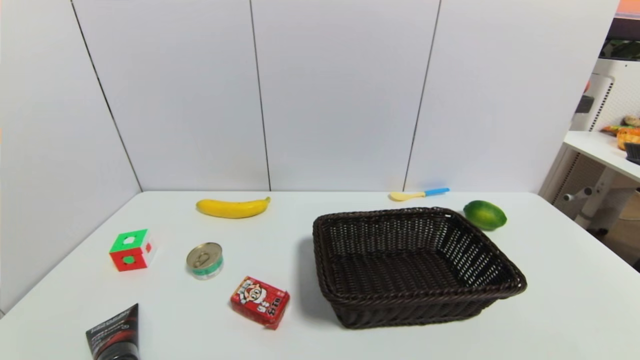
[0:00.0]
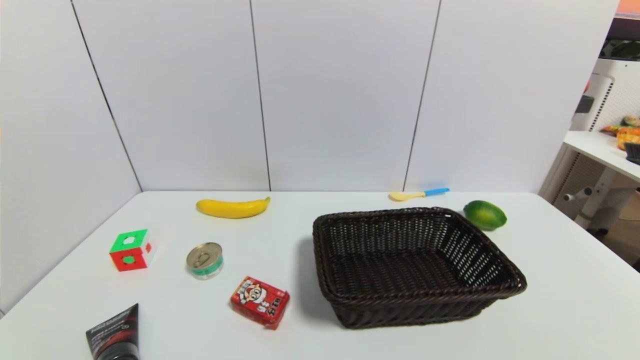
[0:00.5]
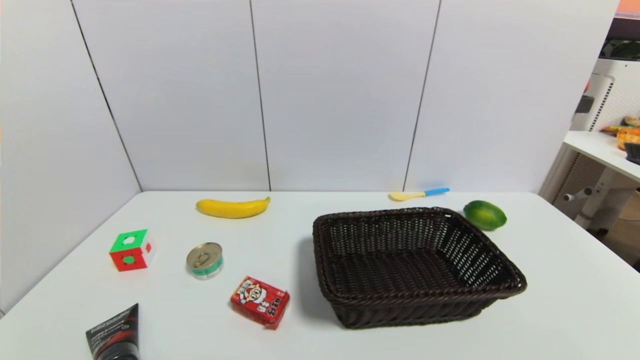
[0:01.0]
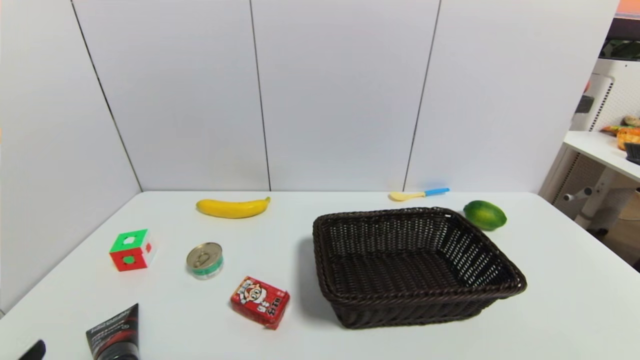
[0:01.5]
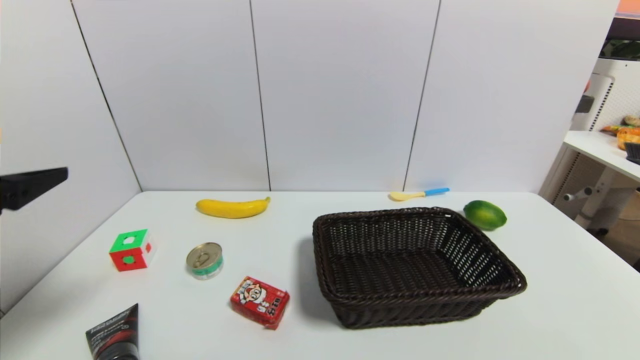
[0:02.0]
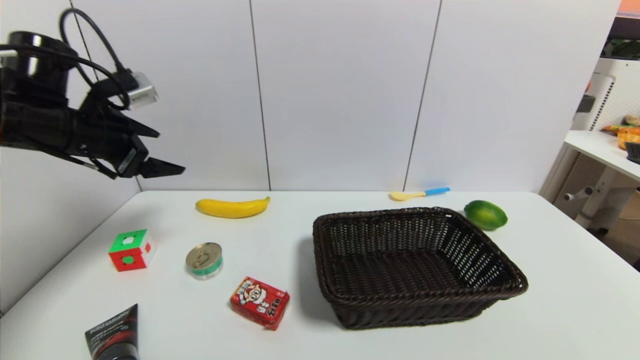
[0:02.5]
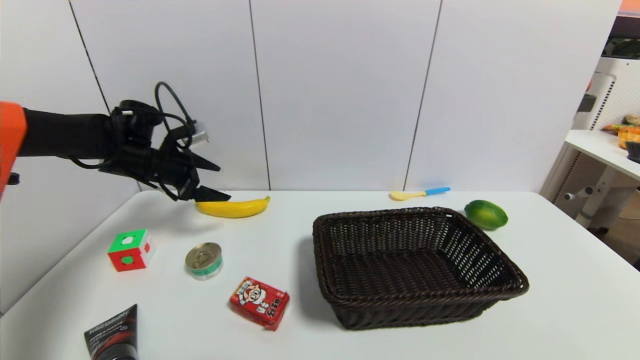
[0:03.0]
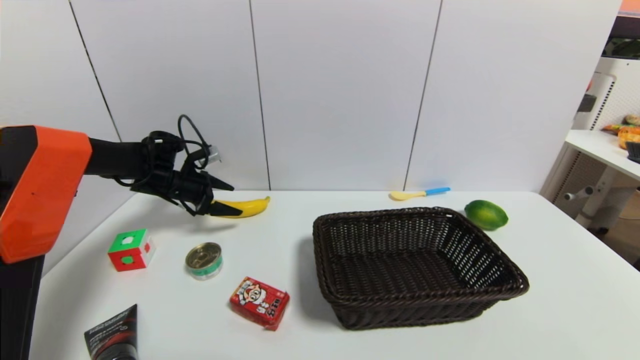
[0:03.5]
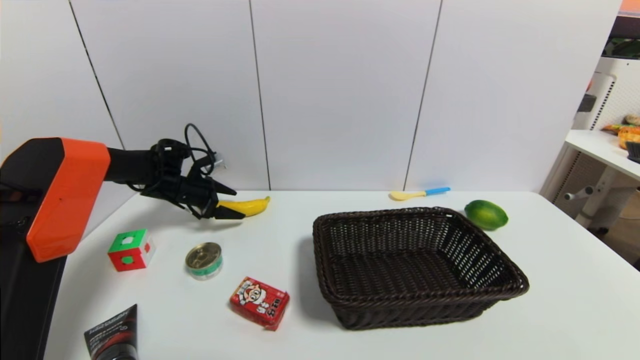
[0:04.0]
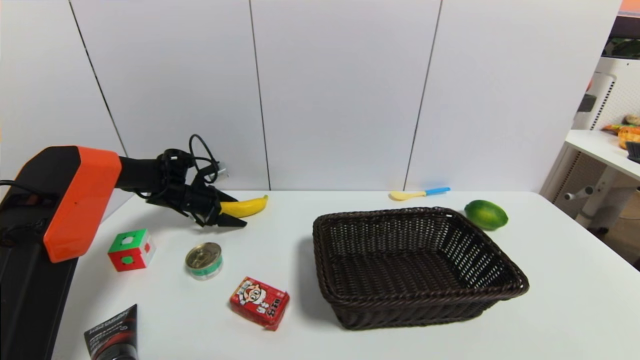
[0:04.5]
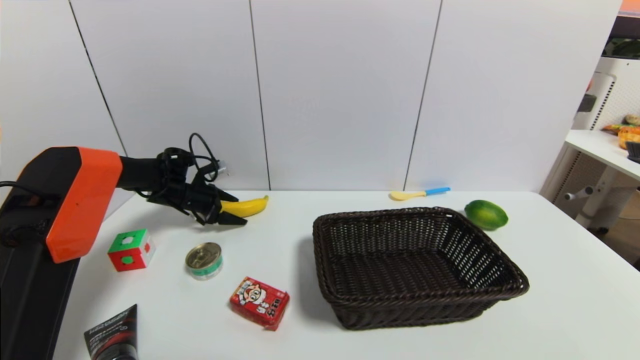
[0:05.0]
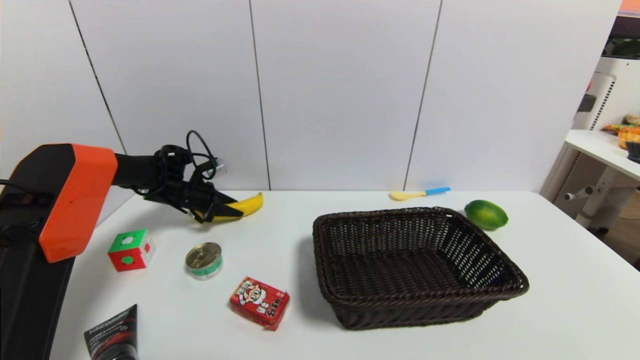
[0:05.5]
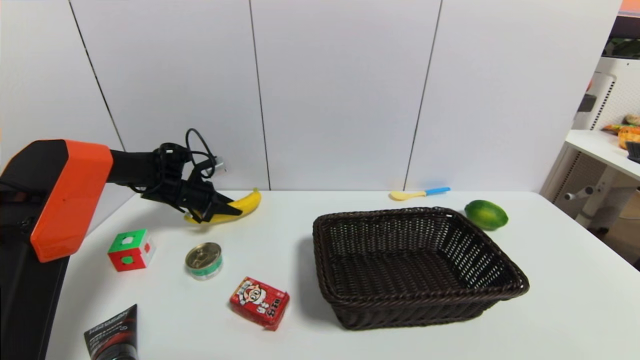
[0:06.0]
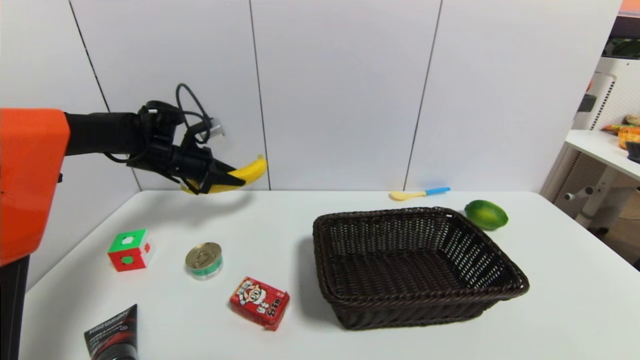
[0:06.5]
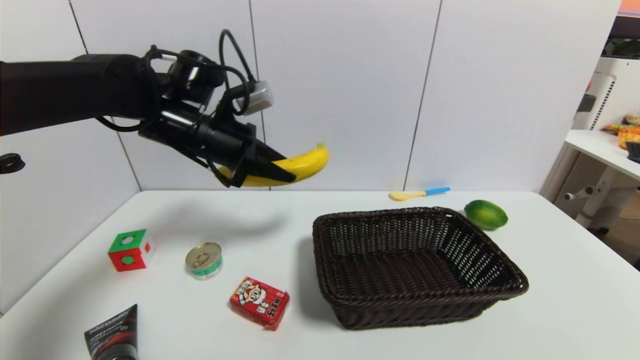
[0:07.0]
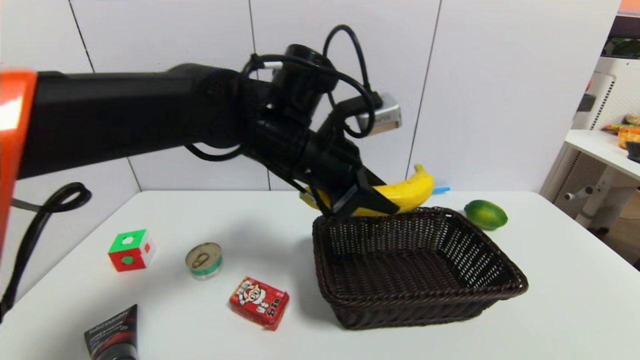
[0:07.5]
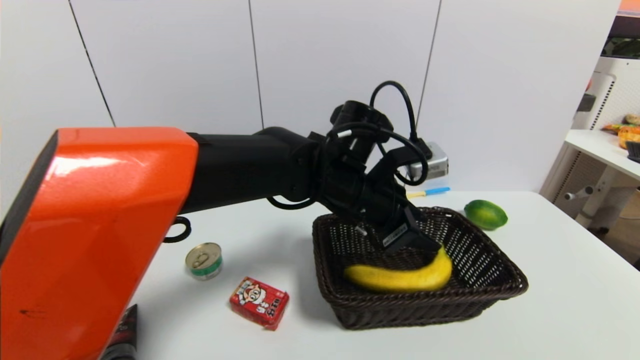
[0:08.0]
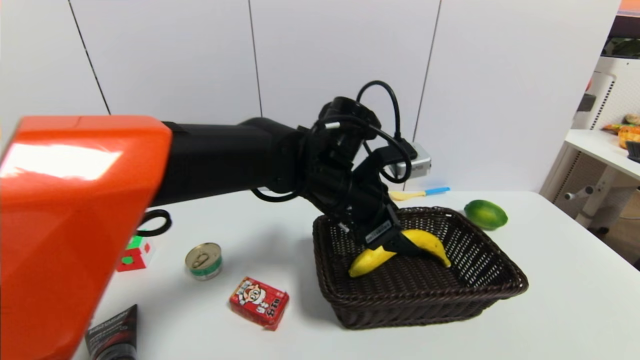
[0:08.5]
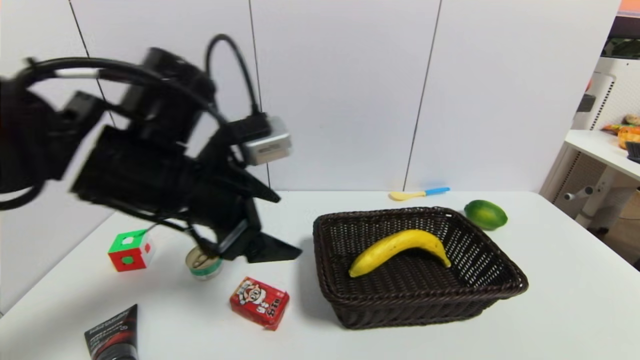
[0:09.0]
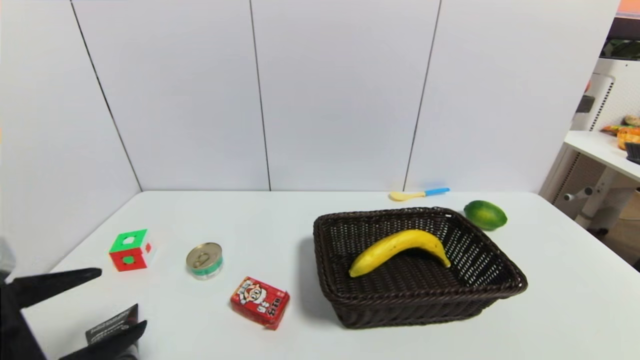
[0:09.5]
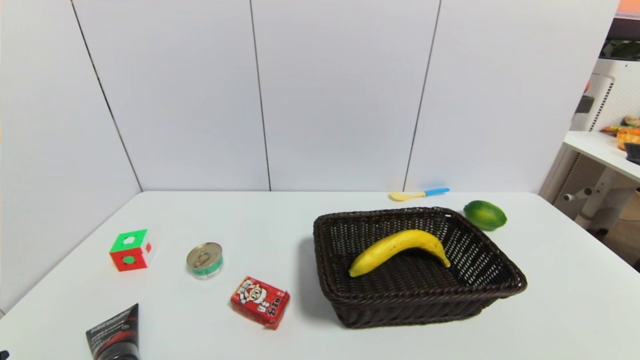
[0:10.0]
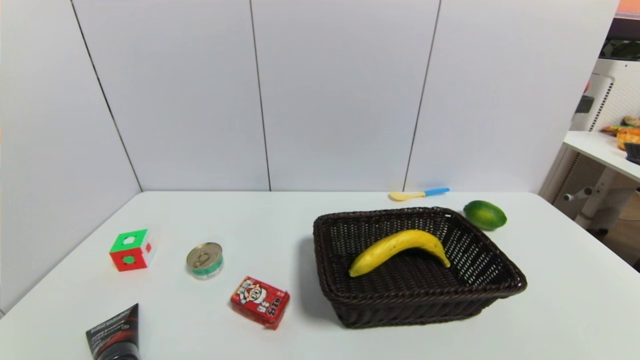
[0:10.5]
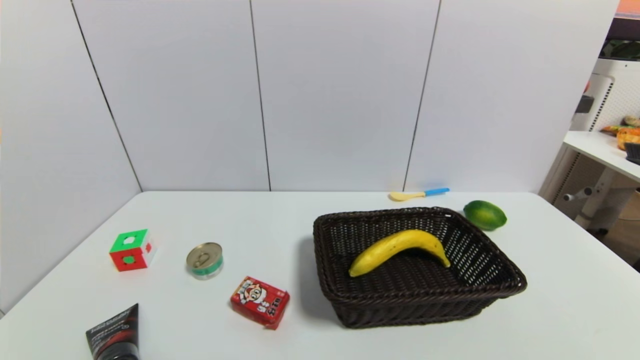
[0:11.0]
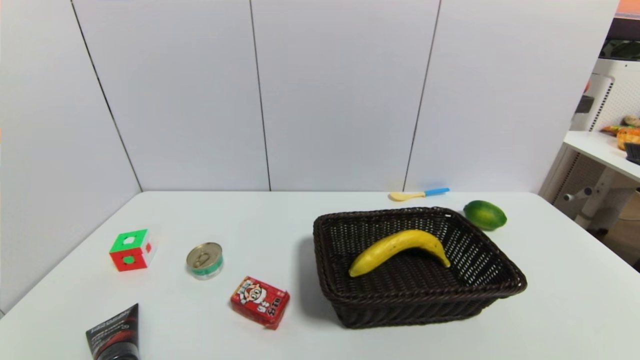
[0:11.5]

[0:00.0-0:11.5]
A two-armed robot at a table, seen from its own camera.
Task of the whole recording: use a gripper to pick the target object and place on the brown basket.
Step, 0:00.0 to 0:06.0: Grasp the banana with the left gripper.
Step, 0:06.5 to 0:08.5: Place the banana into the basket with the left gripper.
0:00.0 to 0:02.0: The left gripper heads upward and forward, covering approximately 30 cm.
0:02.0 to 0:04.0: The left gripper shifts some 40 cm forward and downward.
0:04.0 to 0:06.0: The left gripper closes its fingers.
0:06.0 to 0:07.5: The left gripper travels to the right, backward and upward by some 35 cm.
0:07.5 to 0:09.5: The left gripper heads to the left and backward, covering some 35 cm, and opens its fingers.
0:09.5 to 0:11.5: The left gripper goes roughly 15 cm downward and backward.
